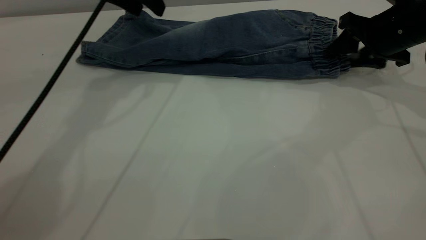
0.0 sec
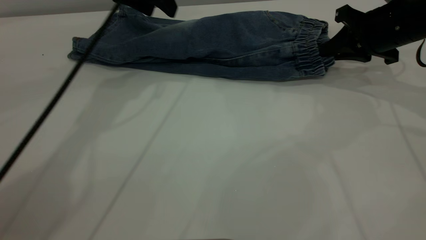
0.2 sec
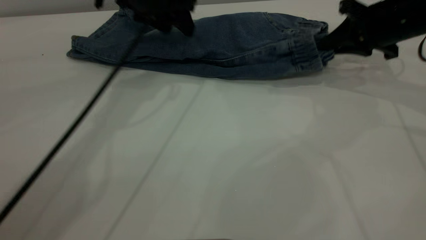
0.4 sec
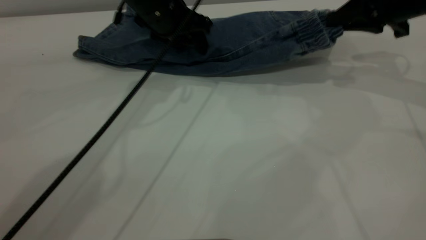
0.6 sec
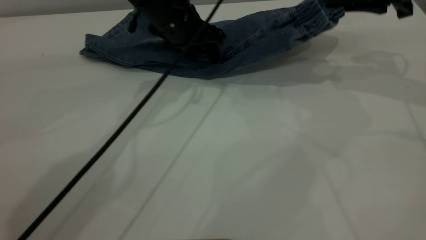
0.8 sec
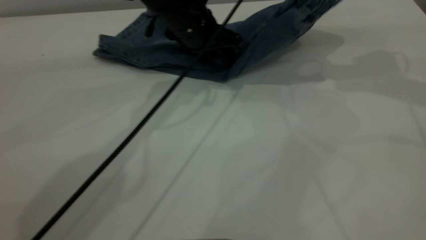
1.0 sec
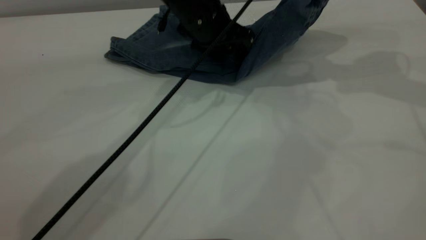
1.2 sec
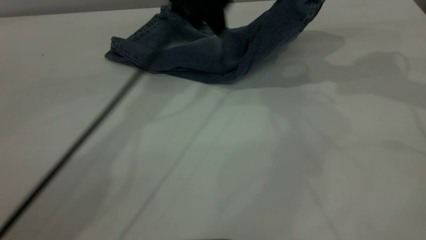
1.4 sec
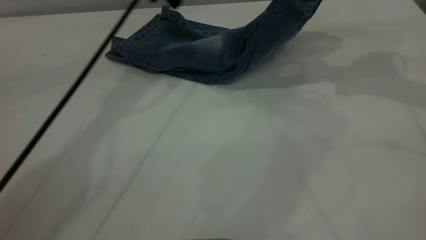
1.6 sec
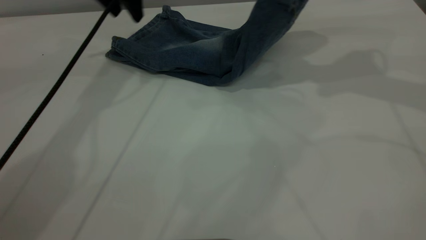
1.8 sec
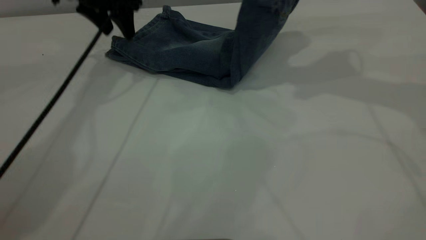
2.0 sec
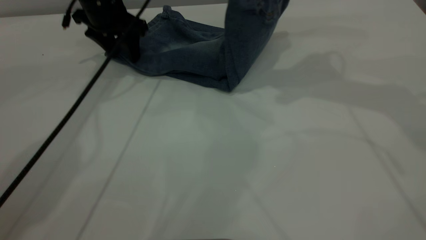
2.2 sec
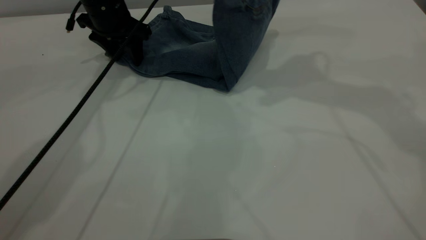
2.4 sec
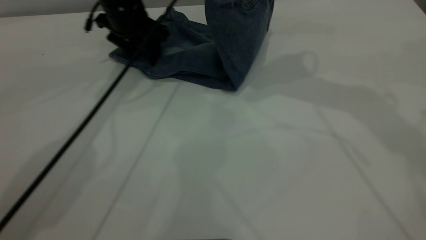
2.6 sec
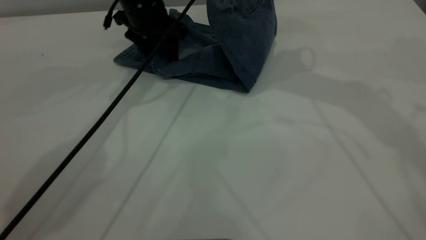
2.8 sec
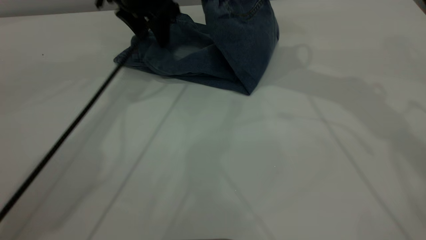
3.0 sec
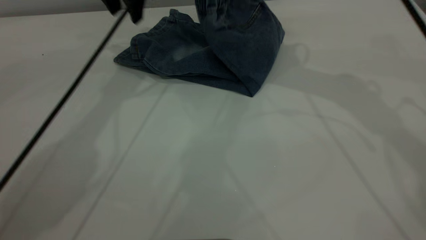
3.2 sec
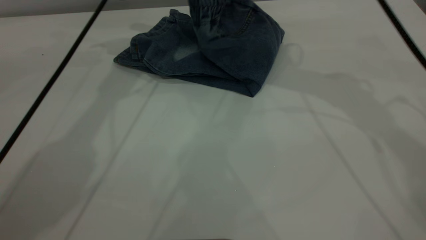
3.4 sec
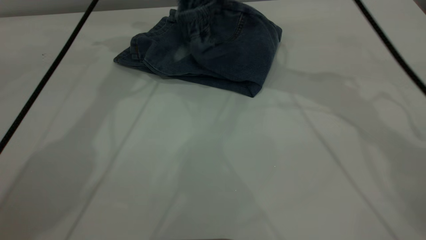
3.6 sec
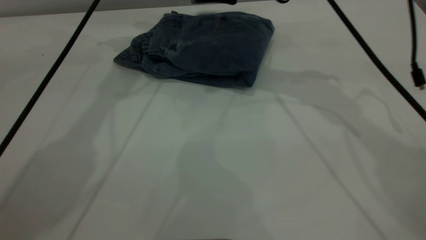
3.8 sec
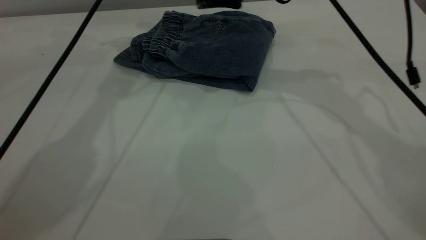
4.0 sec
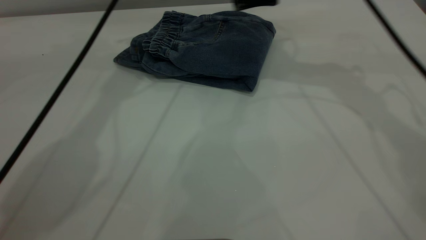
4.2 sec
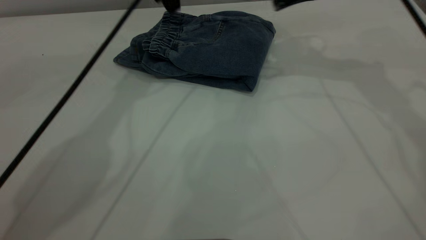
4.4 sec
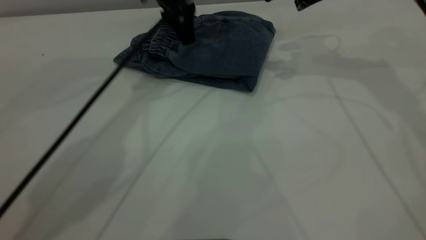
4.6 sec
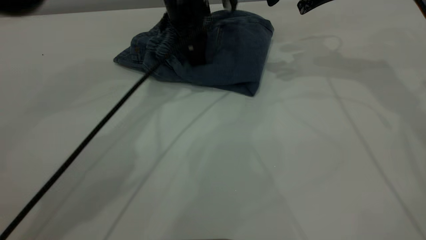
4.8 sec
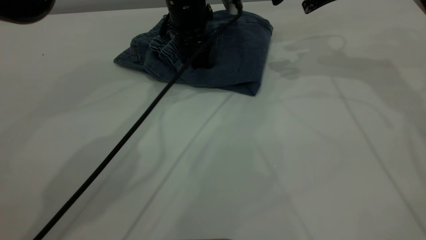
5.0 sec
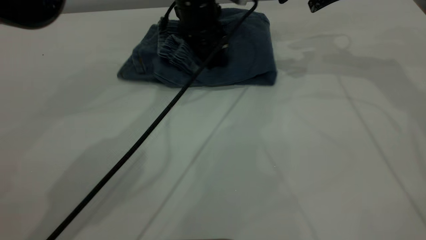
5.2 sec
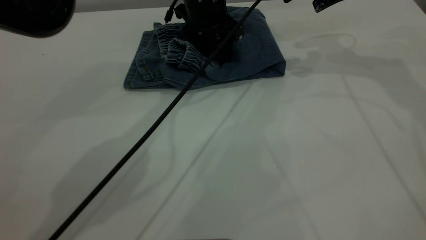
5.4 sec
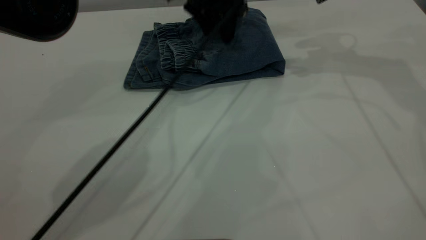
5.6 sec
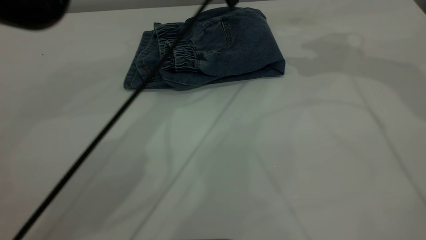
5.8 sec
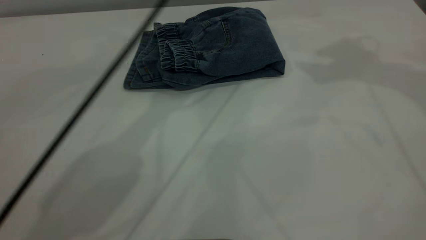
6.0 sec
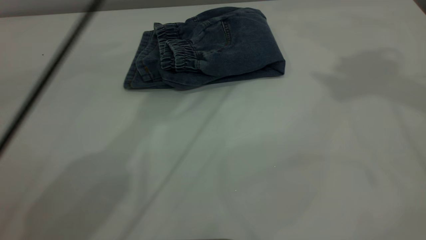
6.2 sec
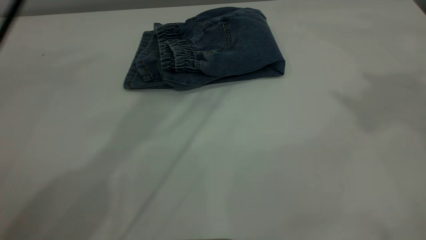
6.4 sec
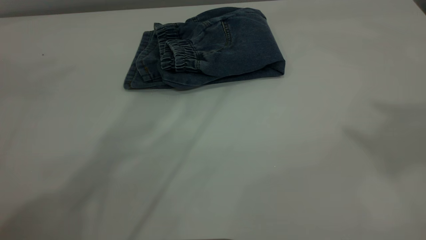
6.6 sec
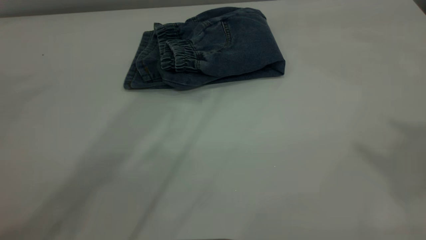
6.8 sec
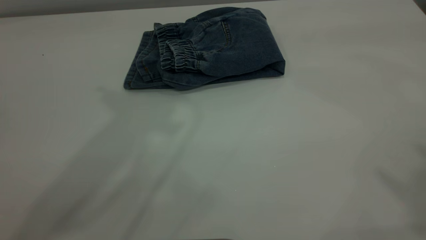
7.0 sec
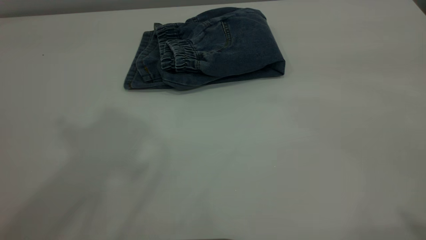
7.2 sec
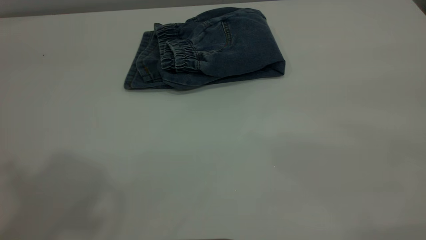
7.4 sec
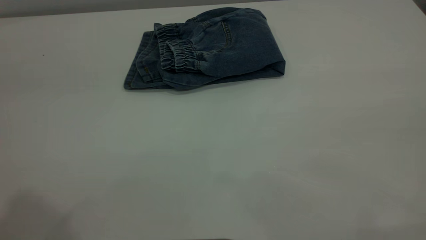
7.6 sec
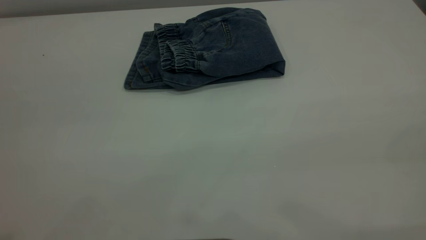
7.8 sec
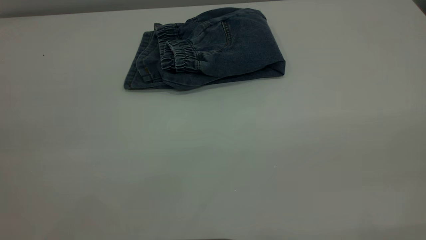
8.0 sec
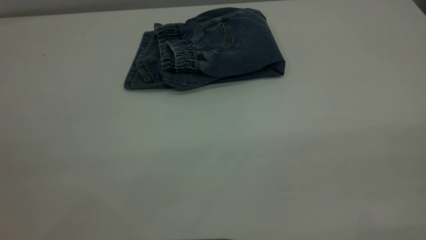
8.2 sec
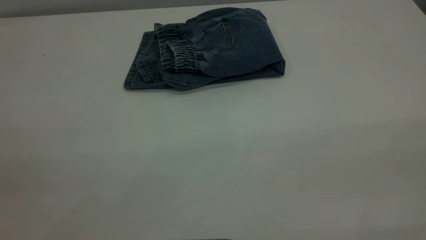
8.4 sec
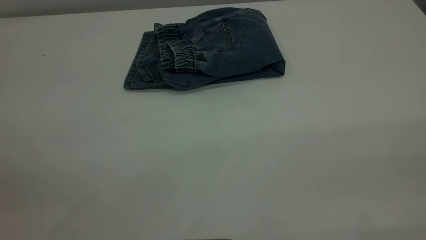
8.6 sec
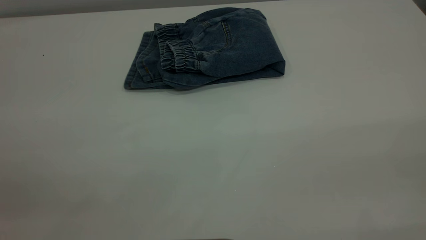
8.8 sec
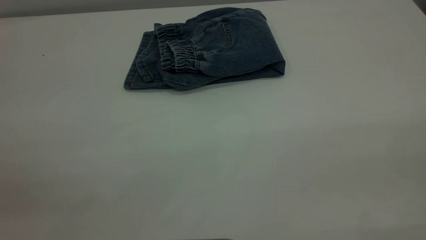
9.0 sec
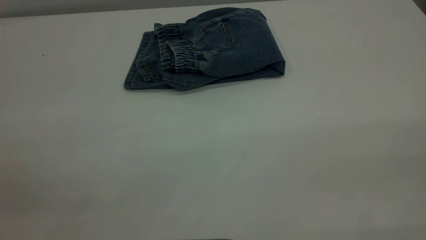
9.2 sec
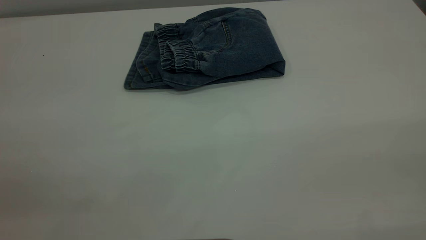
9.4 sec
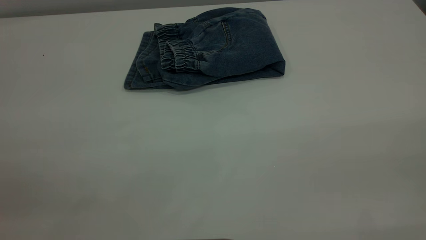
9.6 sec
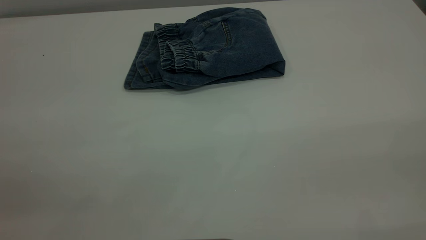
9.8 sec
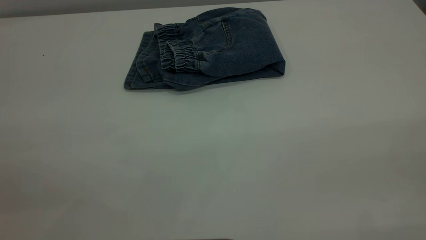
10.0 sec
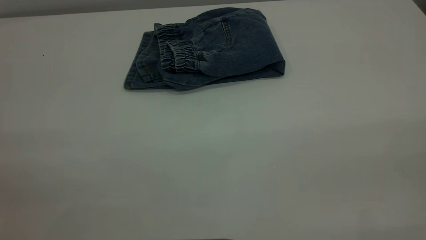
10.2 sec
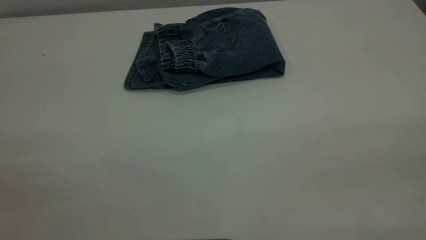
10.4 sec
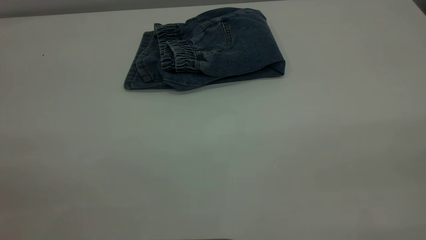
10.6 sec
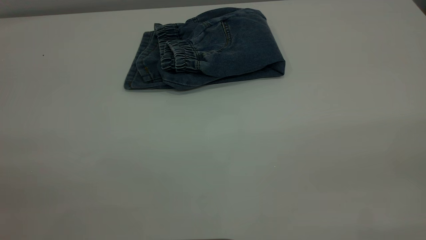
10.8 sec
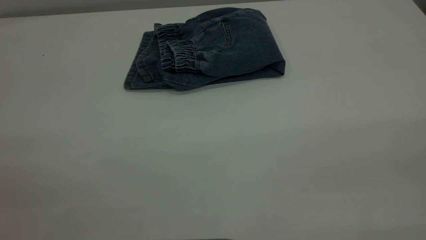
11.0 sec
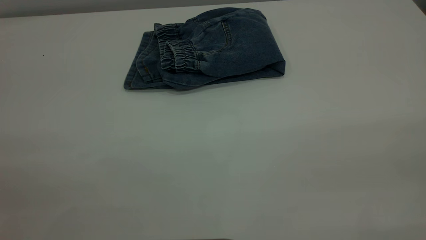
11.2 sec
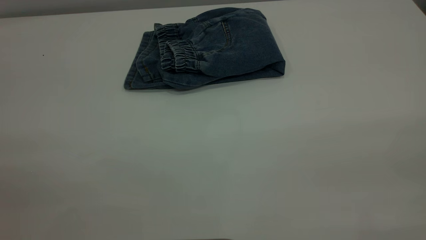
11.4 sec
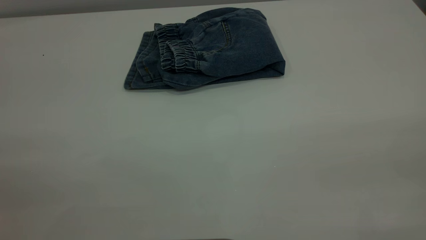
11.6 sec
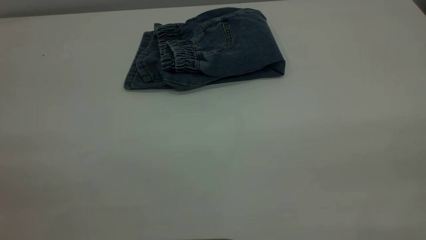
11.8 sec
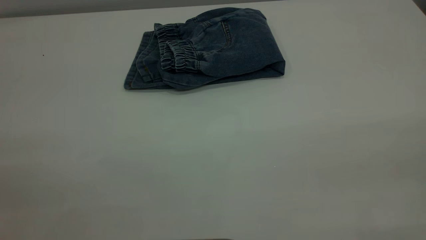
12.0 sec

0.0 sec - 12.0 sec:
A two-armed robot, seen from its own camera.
Step, 0.0 sec - 5.8 sec: Fold your pants from right to left.
0.0 sec - 1.6 sec: The right gripper heads upward, covering approximately 15 cm. The left gripper travels to the right and back again, some 10 cm each way.
1.6 sec - 3.0 sec: The right gripper is displaced to the left by approximately 15 cm.
3.0 sec - 4.4 sec: The right gripper shifts by roughly 5 cm, and opens.
4.4 sec - 6.0 sec: The right gripper moves upward, approximately 15 cm, while the left gripper shifts approximately 10 cm upward and to the right.
6.0 sec - 7.6 sec: The left gripper travels backward, to the left and upward by some 50 cm.

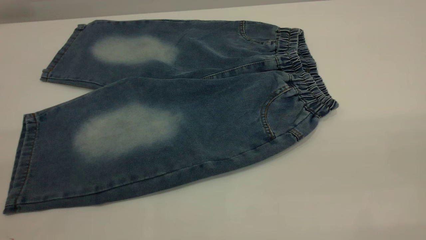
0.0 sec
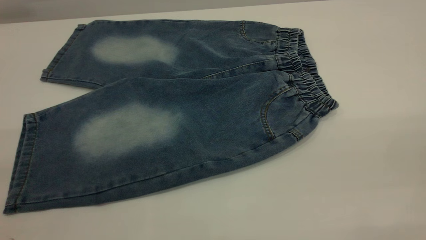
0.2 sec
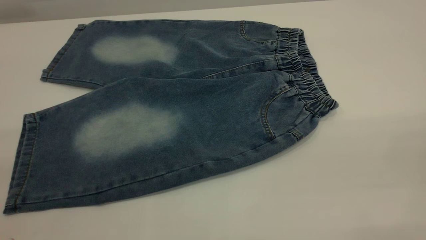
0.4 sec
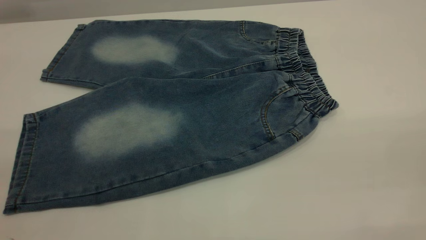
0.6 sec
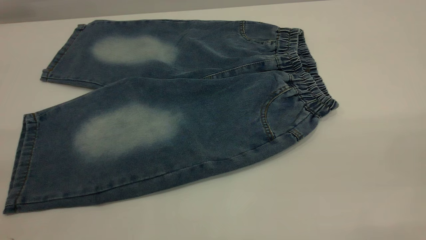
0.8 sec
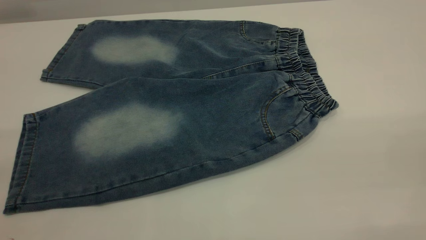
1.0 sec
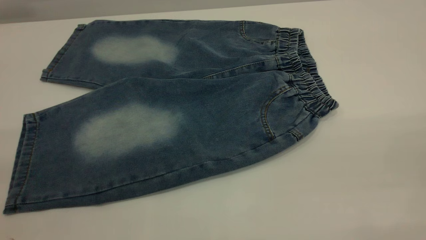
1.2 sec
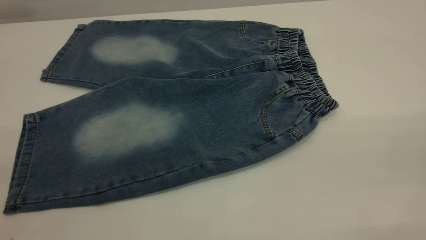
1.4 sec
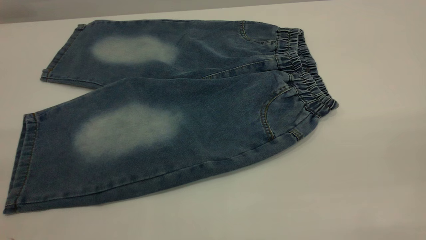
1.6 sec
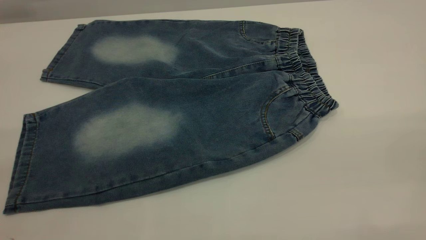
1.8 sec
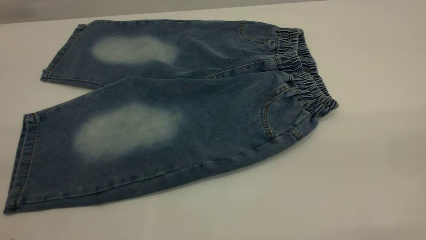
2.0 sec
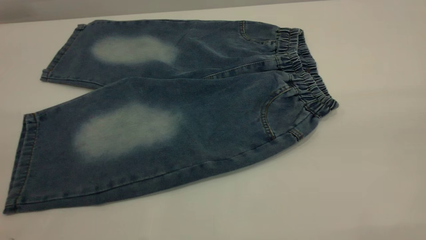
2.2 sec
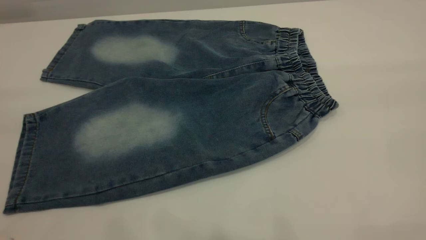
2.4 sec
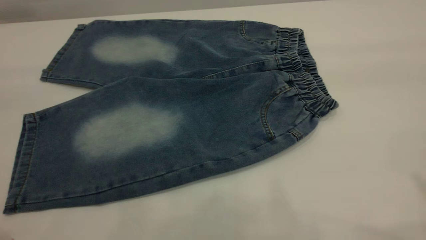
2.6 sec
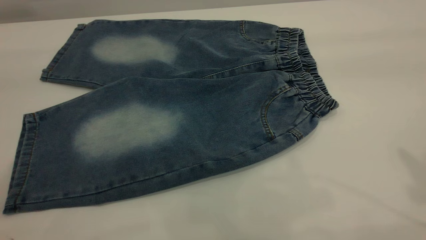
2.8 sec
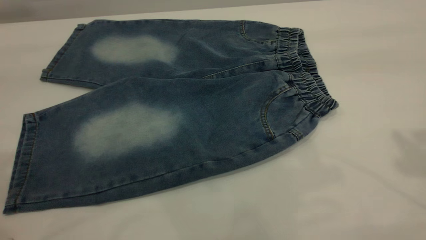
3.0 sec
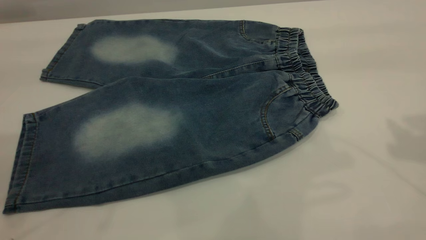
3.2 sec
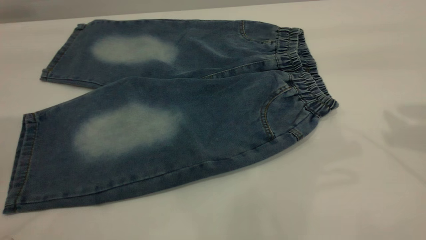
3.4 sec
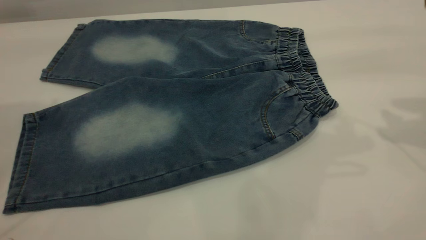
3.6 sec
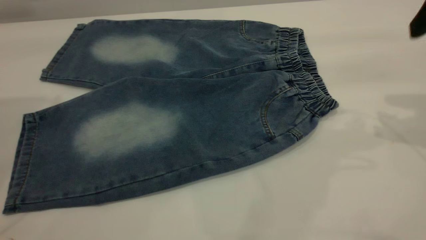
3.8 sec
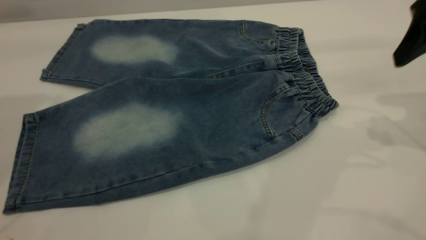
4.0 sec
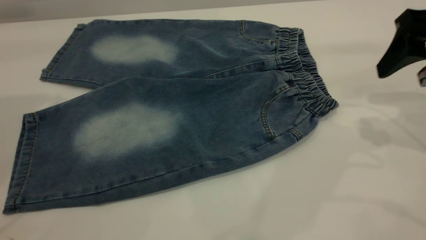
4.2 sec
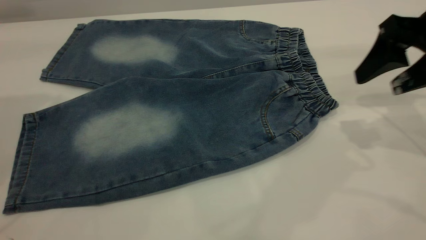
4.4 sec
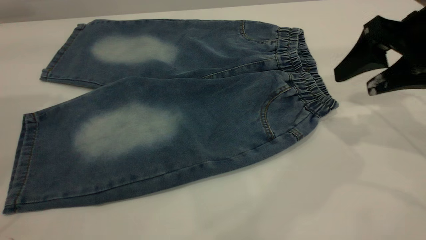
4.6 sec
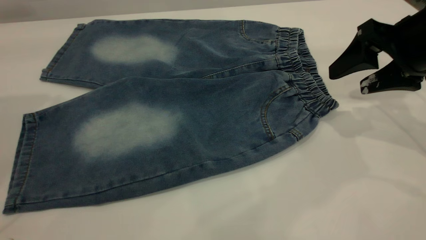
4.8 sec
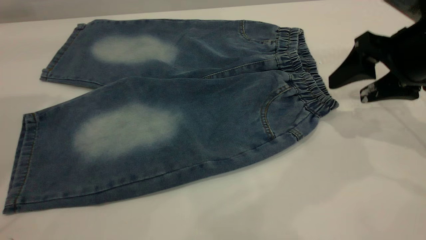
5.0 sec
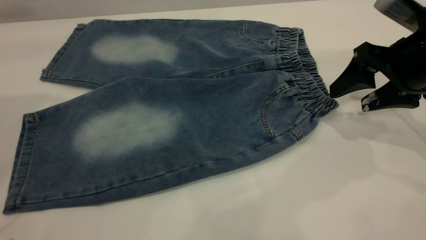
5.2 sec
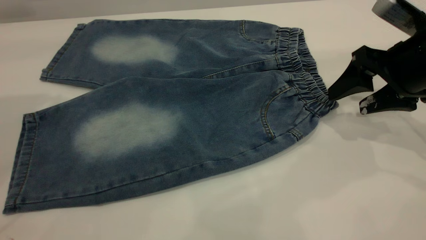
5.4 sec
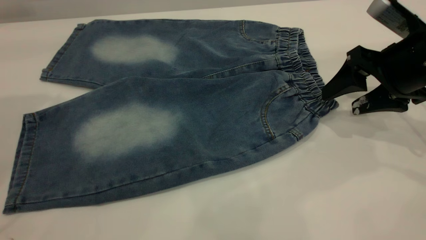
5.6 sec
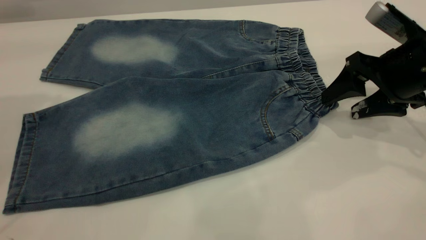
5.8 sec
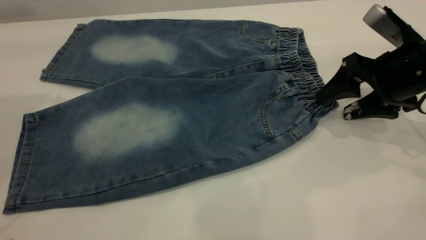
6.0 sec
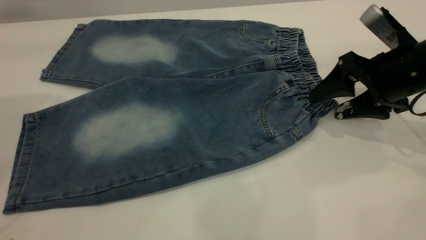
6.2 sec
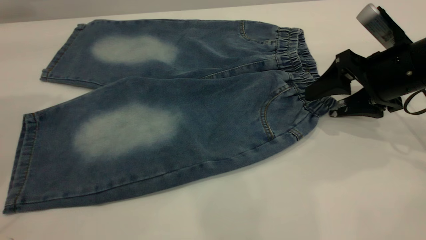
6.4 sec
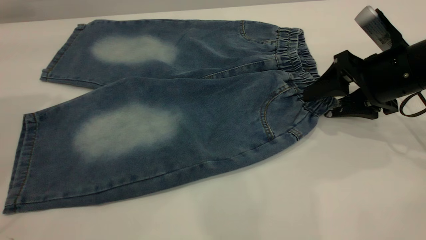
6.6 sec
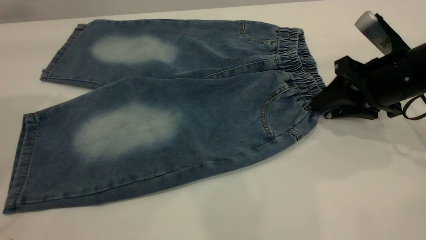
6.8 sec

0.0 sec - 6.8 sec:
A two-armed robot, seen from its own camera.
0.0 sec - 1.4 sec: Both grippers stay about where they are.
2.8 sec - 4.0 sec: The right gripper heads downward and forward, covering approximately 20 cm.
4.0 sec - 5.4 sec: The right gripper shifts approximately 10 cm downward.
5.4 sec - 6.8 sec: The right gripper closes up.
